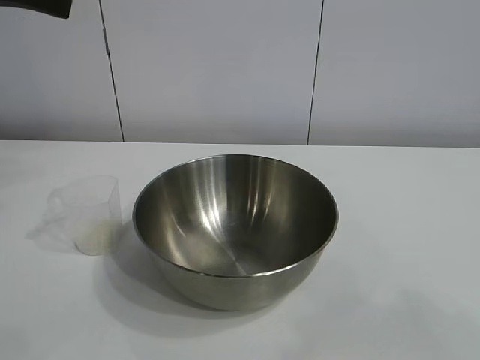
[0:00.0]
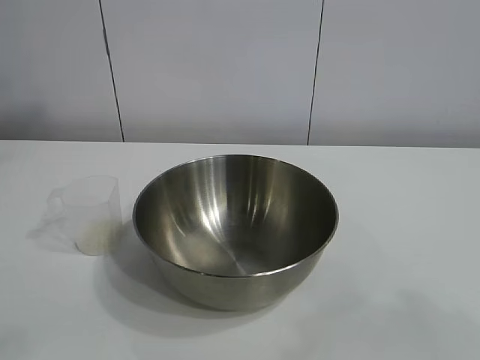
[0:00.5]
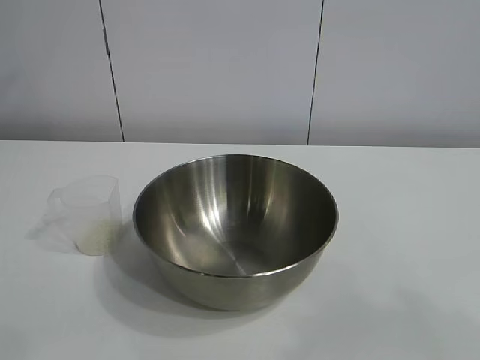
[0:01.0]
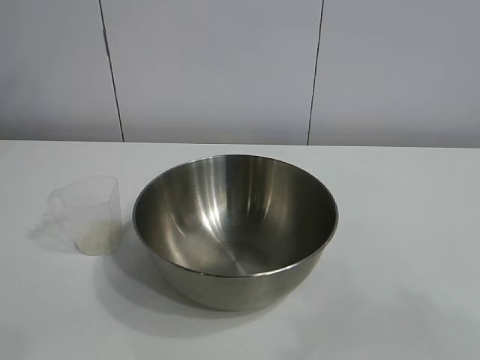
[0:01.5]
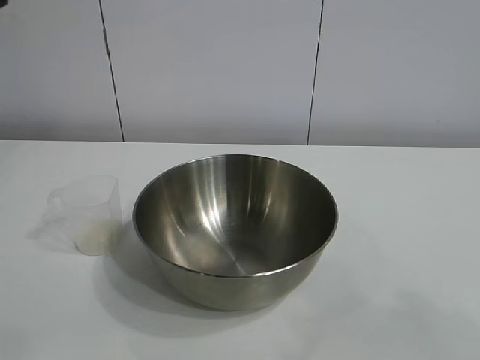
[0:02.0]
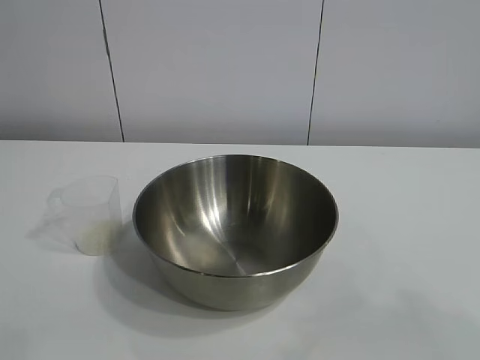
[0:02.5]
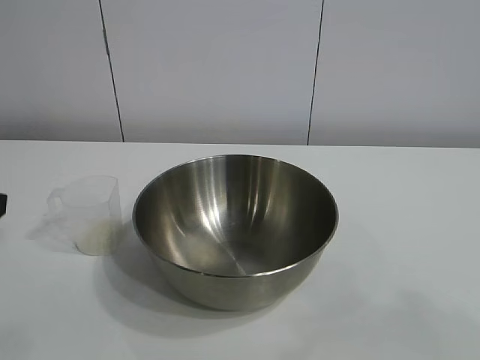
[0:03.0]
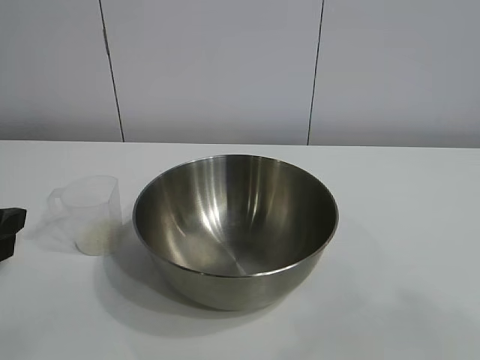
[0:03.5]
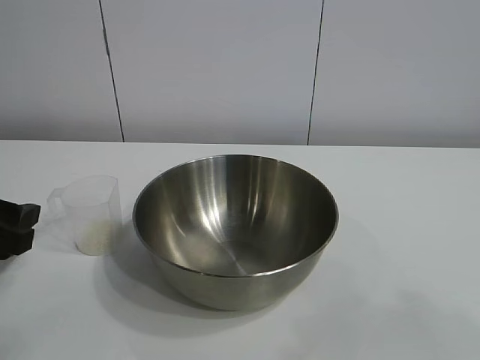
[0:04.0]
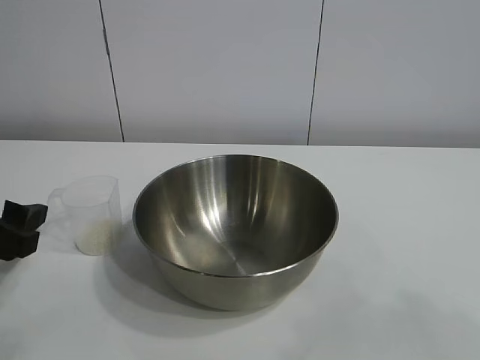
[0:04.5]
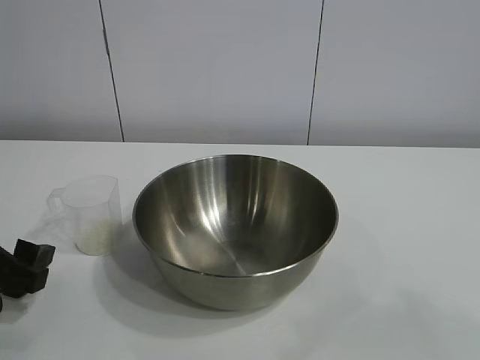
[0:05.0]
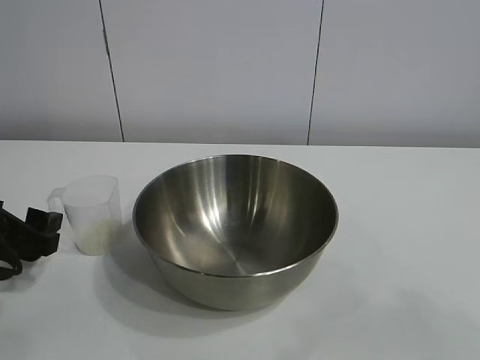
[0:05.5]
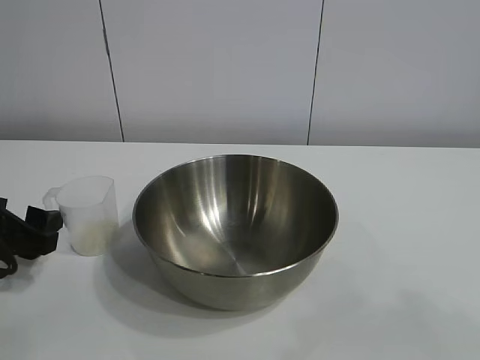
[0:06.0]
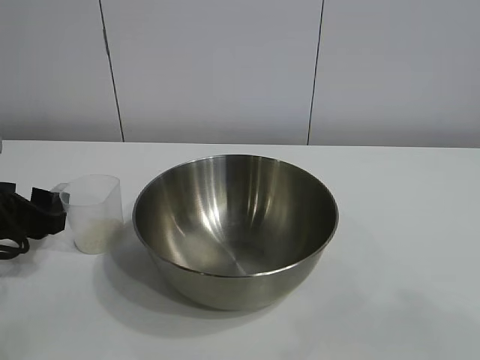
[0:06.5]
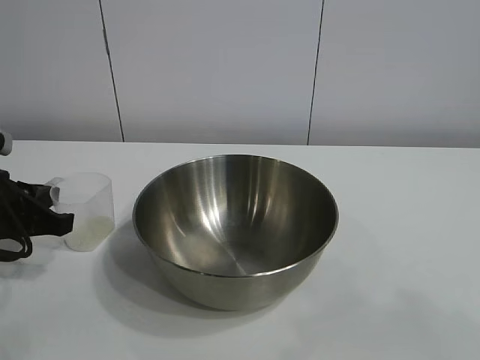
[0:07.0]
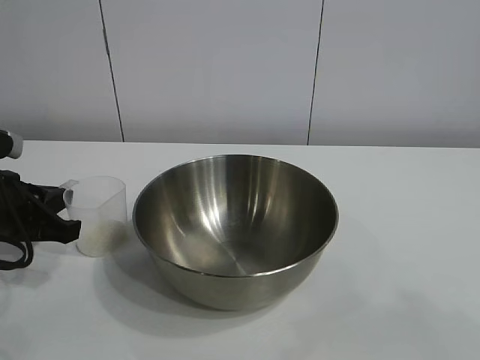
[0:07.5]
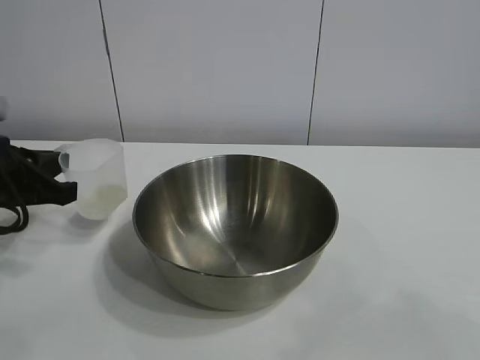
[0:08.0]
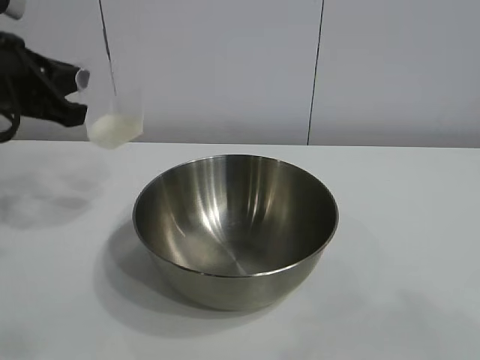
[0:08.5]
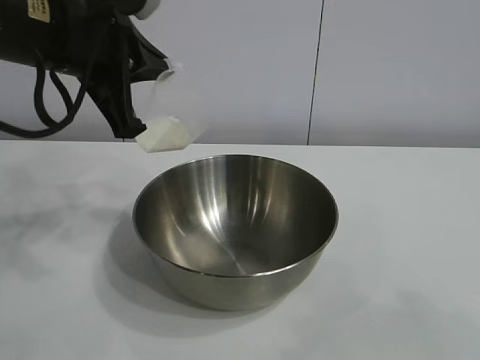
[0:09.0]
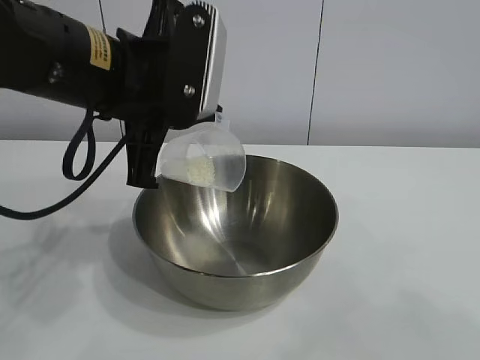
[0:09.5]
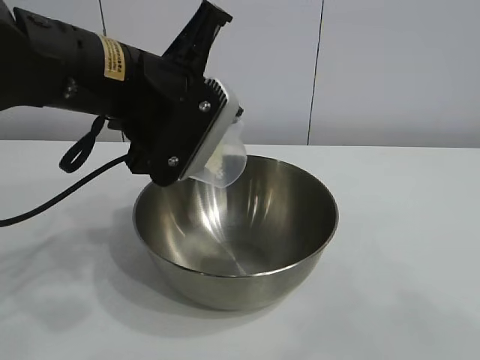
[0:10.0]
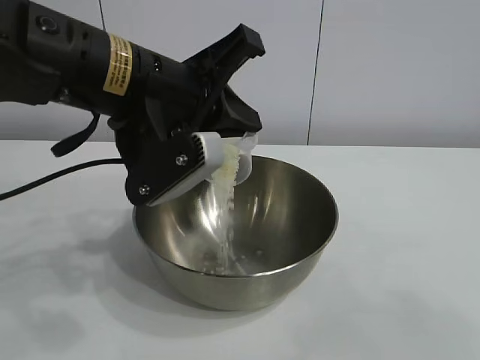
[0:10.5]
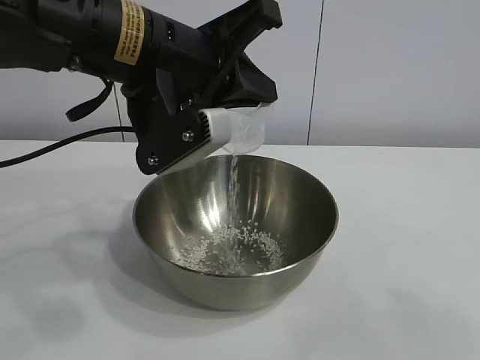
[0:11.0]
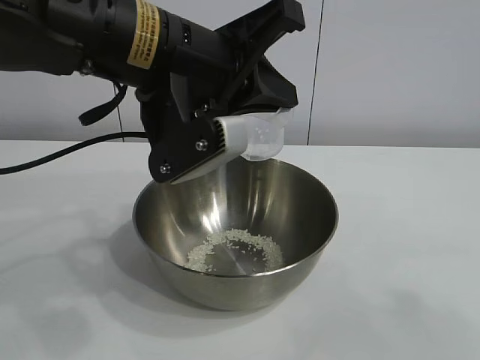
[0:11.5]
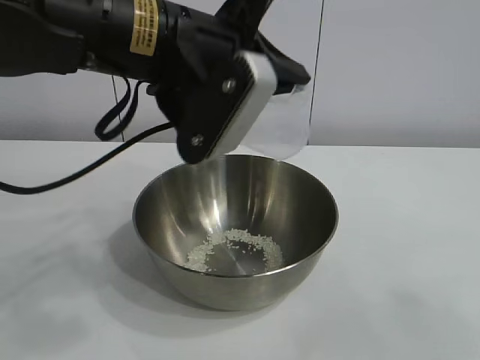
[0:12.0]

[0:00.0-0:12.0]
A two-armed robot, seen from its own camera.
Task of the whole recording: the right gripper grasp the rice container and place it in the center of the table, the left gripper grasp the rice scoop and pour the rice into the rice container.
Step, 0:00.0 to 0:07.0: Grasp the cup with rice in it with left gripper.
Step, 0:07.5 to 0:11.5: Pour the rice from the cup into the bowl with the left gripper.

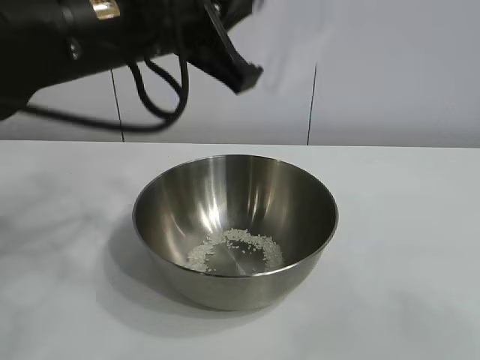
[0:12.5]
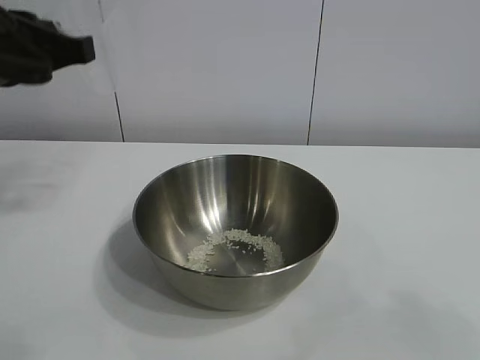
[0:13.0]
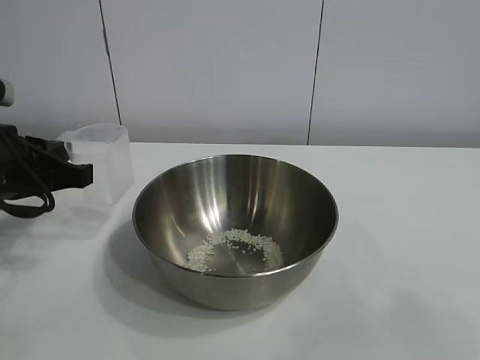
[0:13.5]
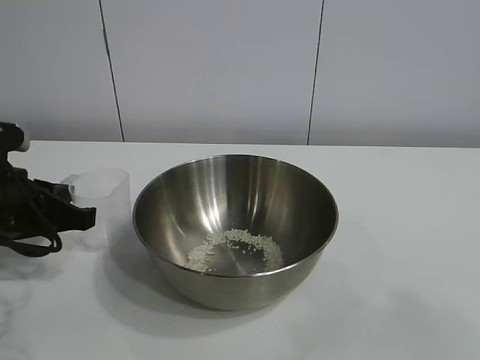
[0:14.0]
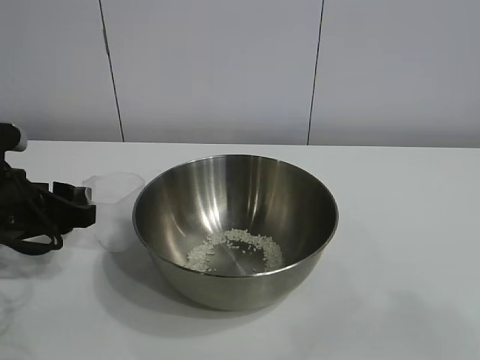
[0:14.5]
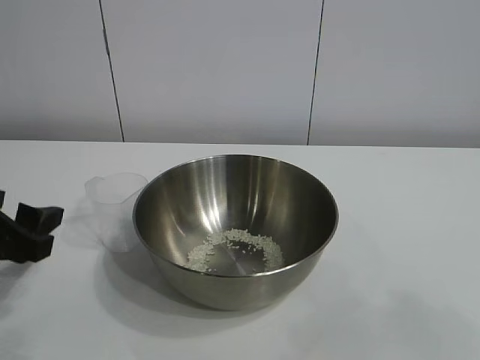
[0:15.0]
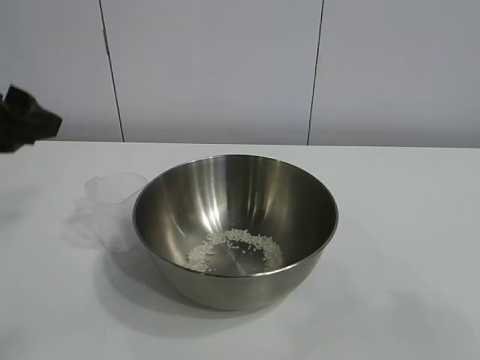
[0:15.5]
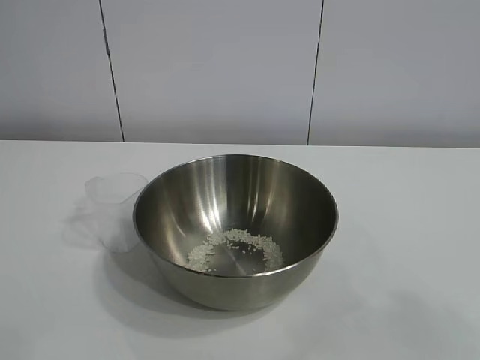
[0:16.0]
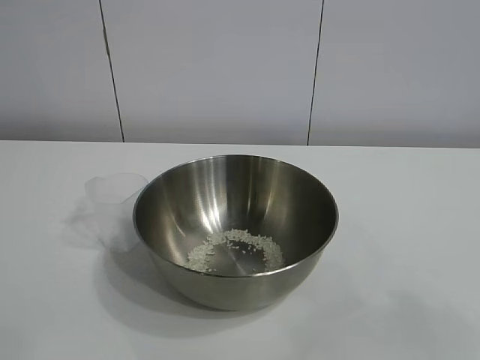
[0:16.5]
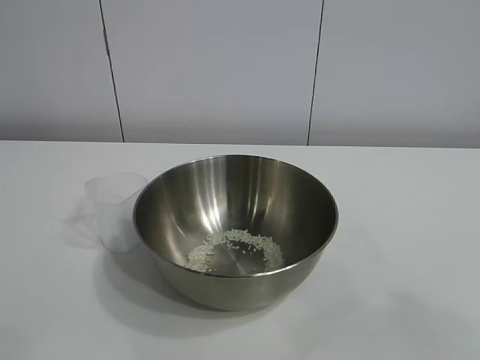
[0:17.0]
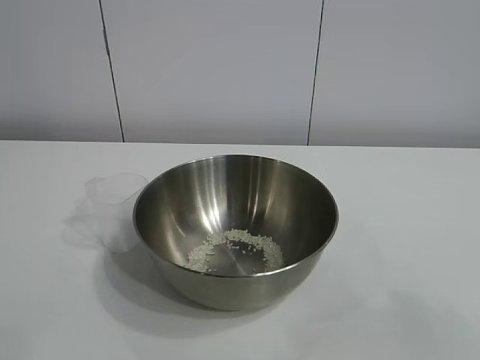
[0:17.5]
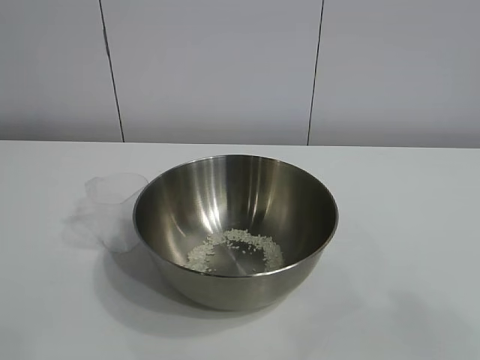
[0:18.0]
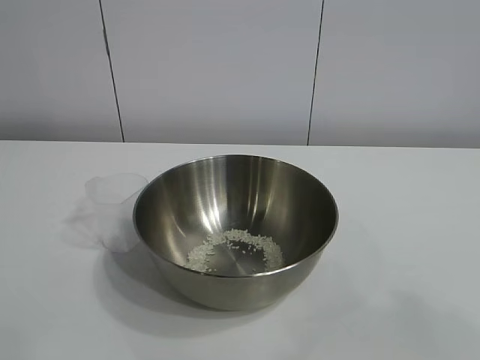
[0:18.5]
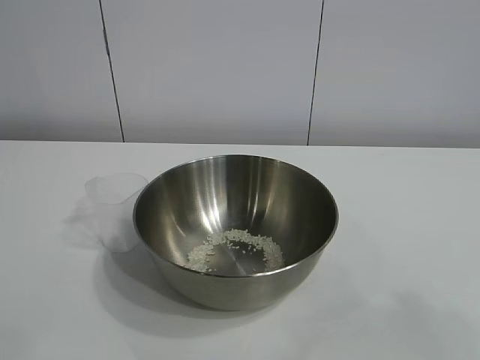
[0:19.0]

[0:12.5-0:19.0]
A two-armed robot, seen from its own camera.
Task of the whole recording: the right gripper grasp the rice container and place it in the center of the table, the left gripper grasp the rice scoop and pour the rice into the rice container.
Step, 0:12.5 to 0:14.0: Place the cup on the table with the left gripper.
